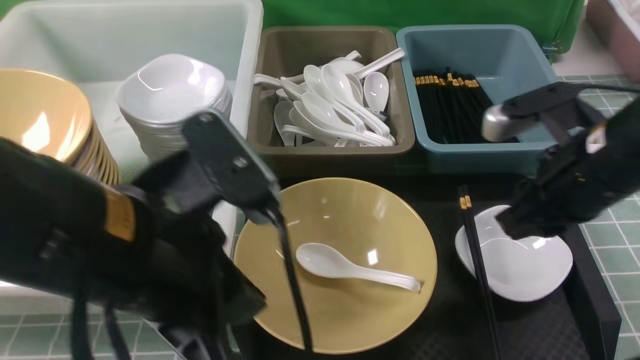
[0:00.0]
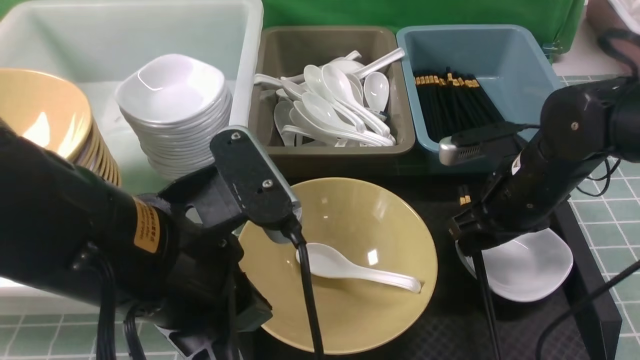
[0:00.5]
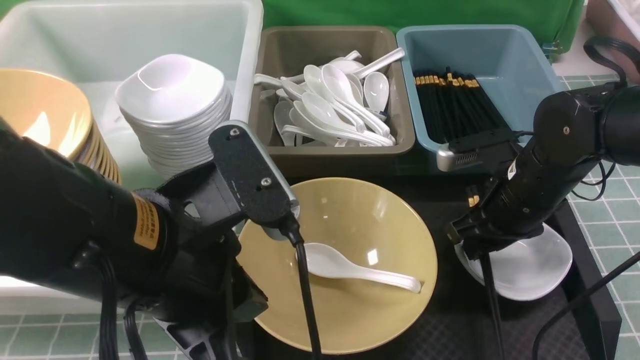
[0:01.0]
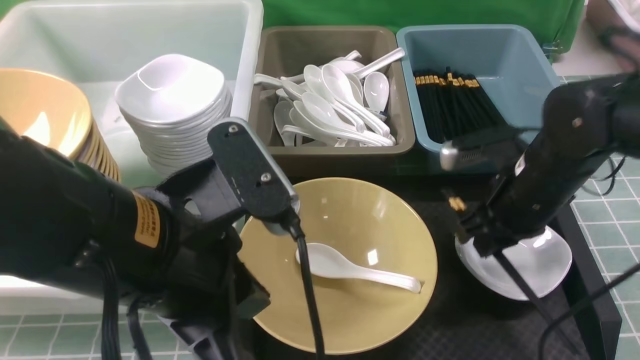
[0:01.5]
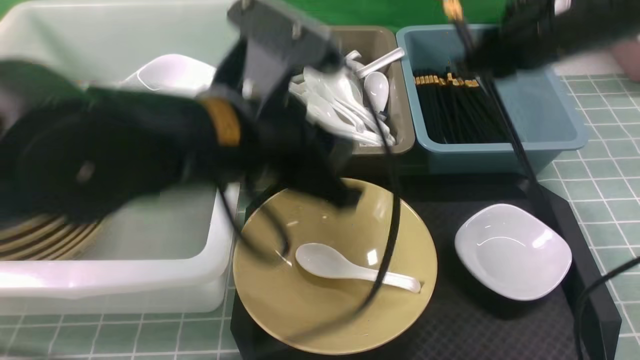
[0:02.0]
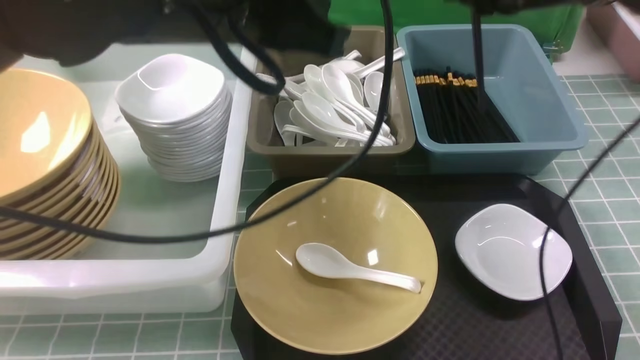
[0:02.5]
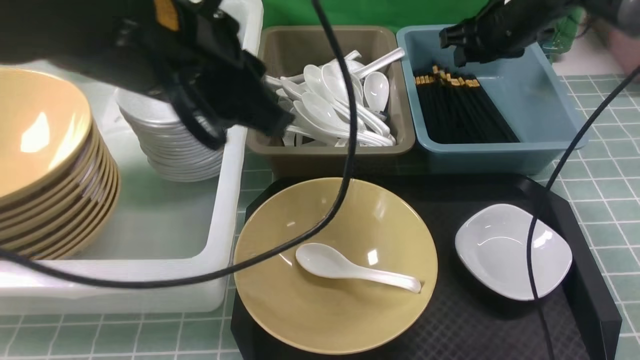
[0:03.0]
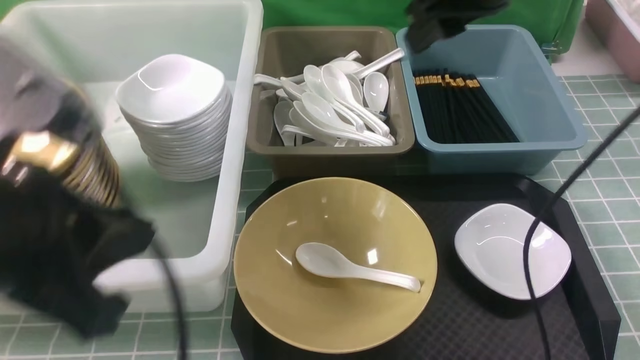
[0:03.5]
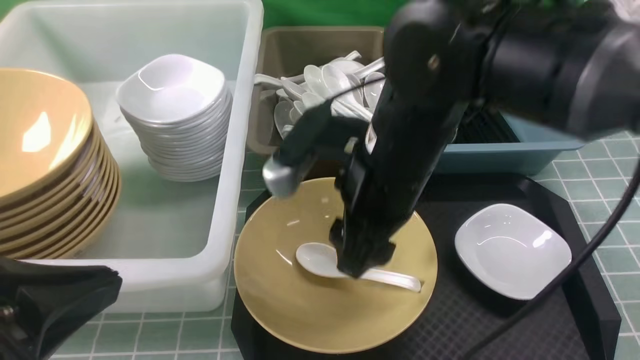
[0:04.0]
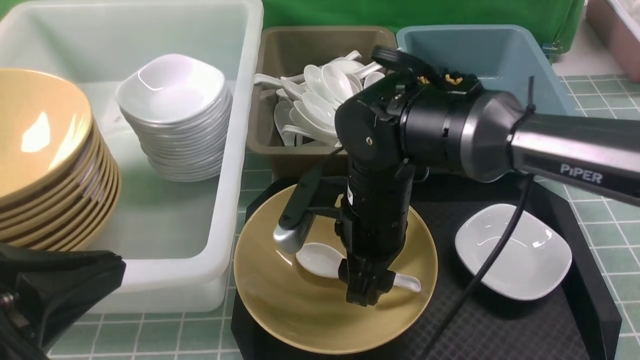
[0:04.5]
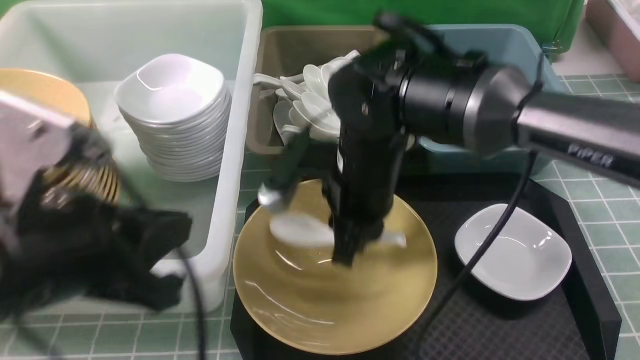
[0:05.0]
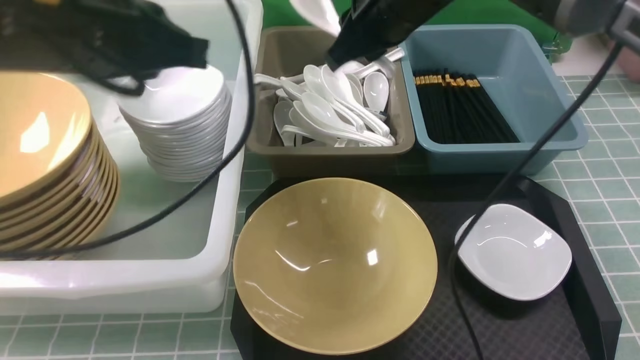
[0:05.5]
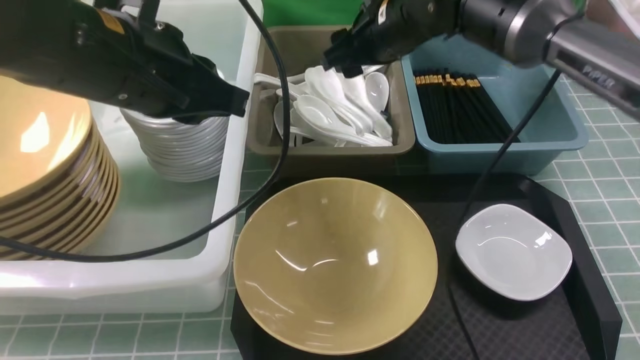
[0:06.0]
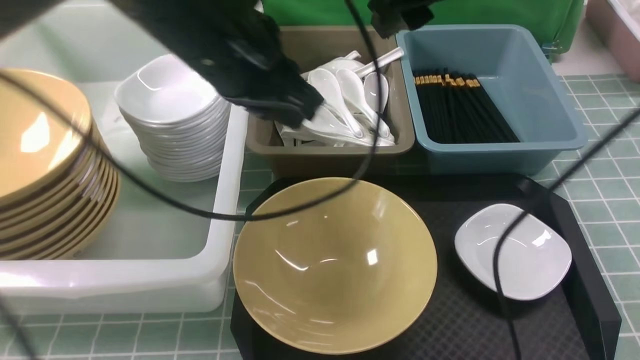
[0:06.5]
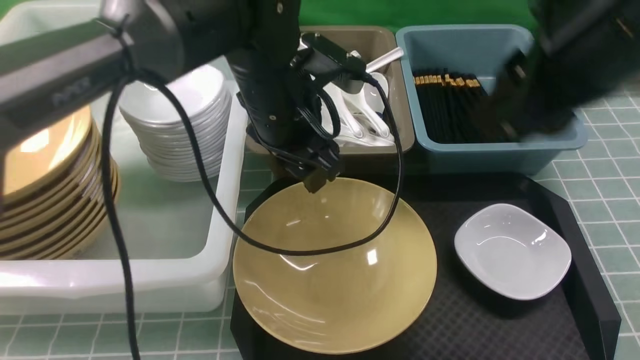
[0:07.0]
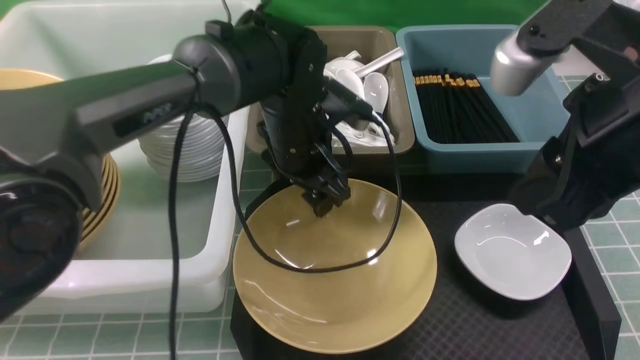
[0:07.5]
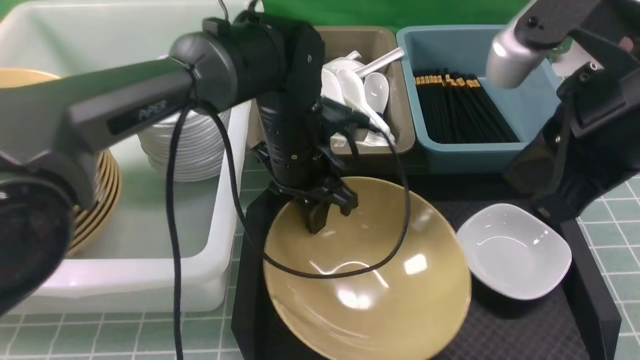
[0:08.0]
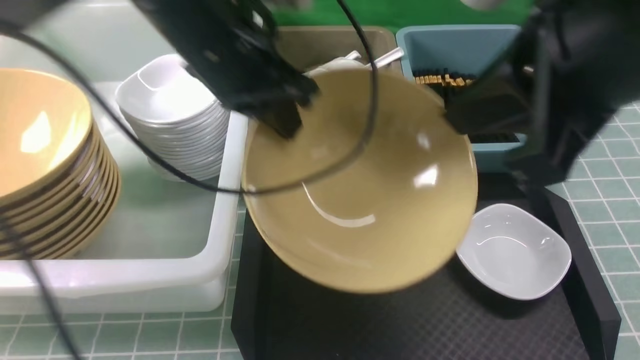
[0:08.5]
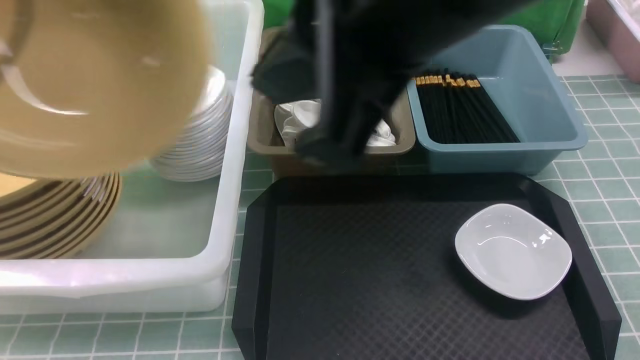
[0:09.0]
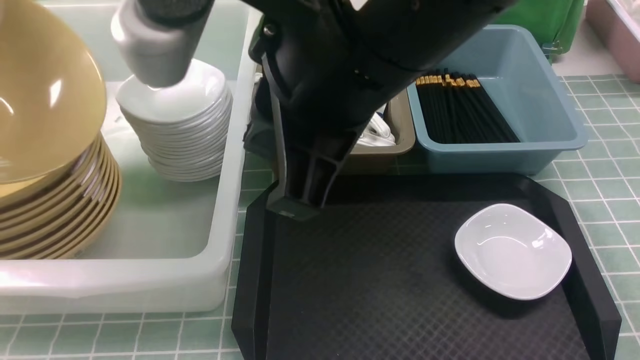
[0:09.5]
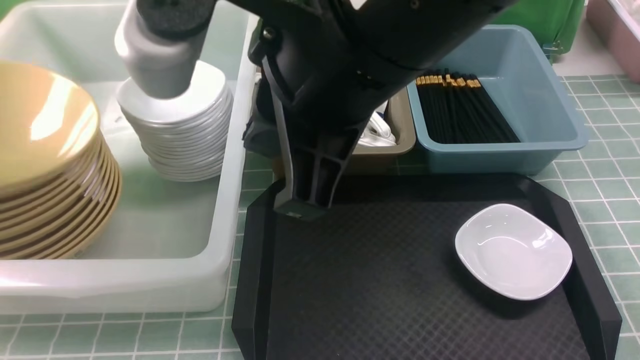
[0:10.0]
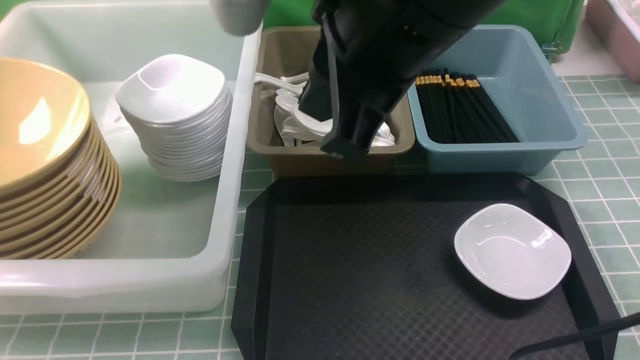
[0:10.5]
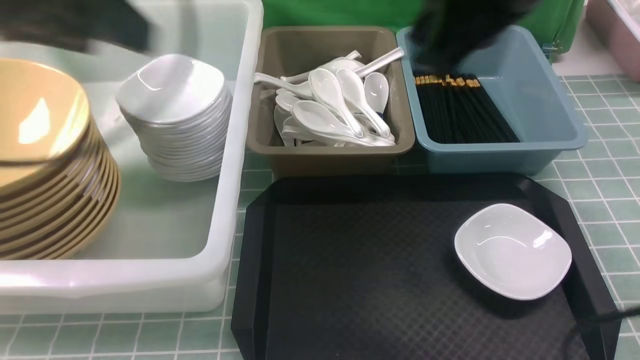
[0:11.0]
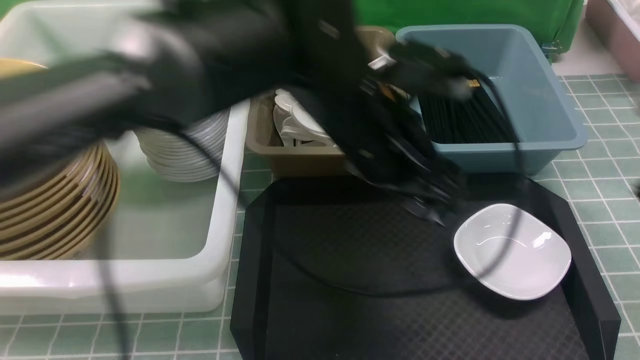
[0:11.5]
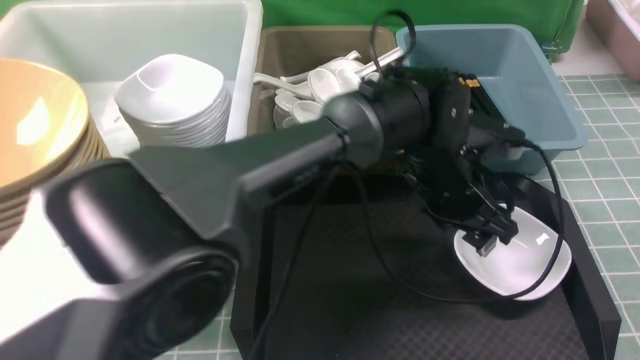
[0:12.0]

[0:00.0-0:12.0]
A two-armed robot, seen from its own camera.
Task of the whole recording: on blue table put chopsticks spoon bowls plates into blue grey white boxes.
Step, 0:02.0 to 0:03.0: use the right arm to put the chopsticks into the small storage box on the right.
Step, 0:03.5 to 0:04.5: use the right arm to grab the soup spoon in the middle.
Step, 0:05.5 to 0:06.0: use the right arm to put the soup spoon into the small storage box in the middle.
Step, 0:06.5 to 0:08.0: use the left arm to grab the yellow noodle bowl on the left.
Step, 0:08.5 to 0:10.5: use the left arm to put the noodle bowl into the large storage box on the left.
0:00.0 to 0:02.0: The left gripper moves to the right and forward, roughly 10 cm. The right gripper moves forward, some 10 cm, reaches some 10 cm downward, then returns, and opens, then closes once more.
0:02.0 to 0:04.0: The left gripper moves to the left and backward, roughly 20 cm, while the right gripper goes roughly 15 cm to the left, travels forward and back again, roughly 15 cm each way, and opens its fingers.
0:04.0 to 0:06.0: The two grippers go roughly 20 cm forward. The right gripper closes, then opens again.
0:06.0 to 0:08.0: The left gripper shifts roughly 20 cm downward, to the right and forward, and opens and closes again. The right gripper travels backward and to the right by roughly 25 cm, and closes its fingers.
0:08.0 to 0:10.0: The right gripper travels to the left by approximately 15 cm. The left gripper is displaced to the left and upward by some 40 cm.
0:10.0 to 0:12.0: The left gripper goes roughly 50 cm to the right, and opens up. Meanwhile the right gripper shifts roughly 25 cm to the right.

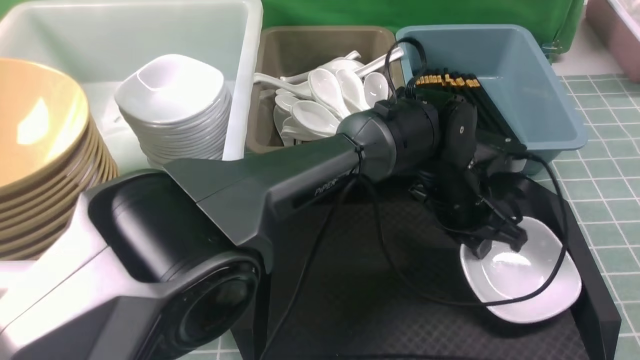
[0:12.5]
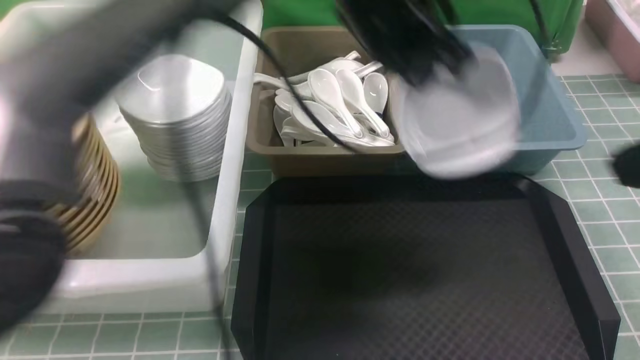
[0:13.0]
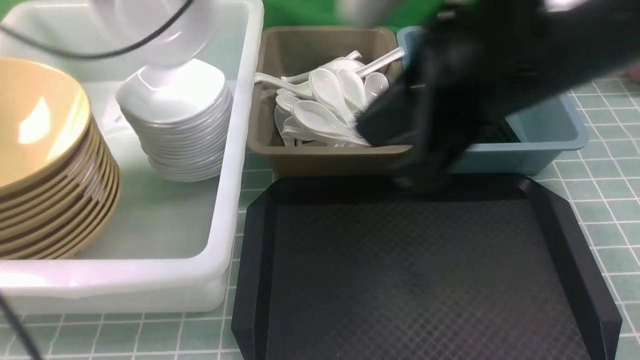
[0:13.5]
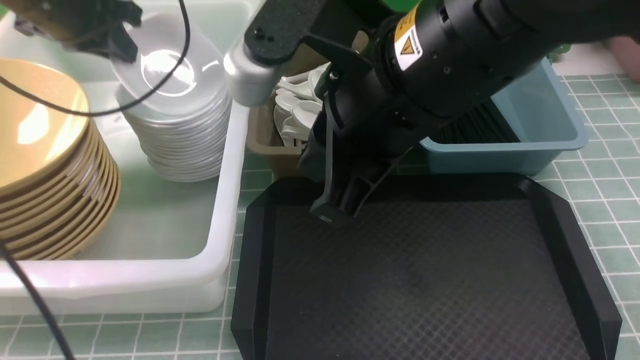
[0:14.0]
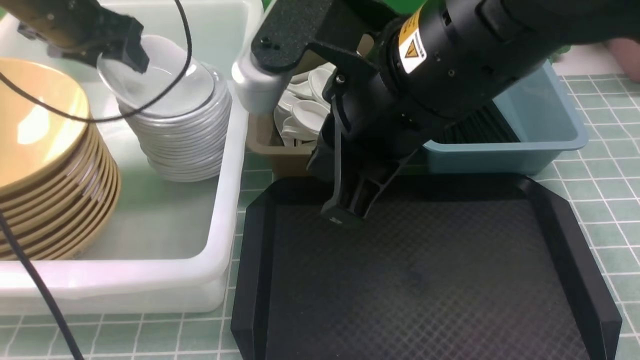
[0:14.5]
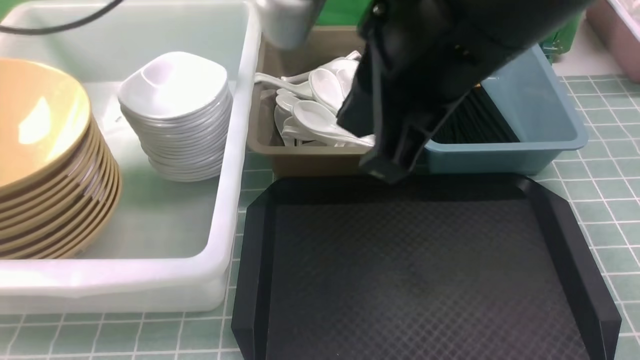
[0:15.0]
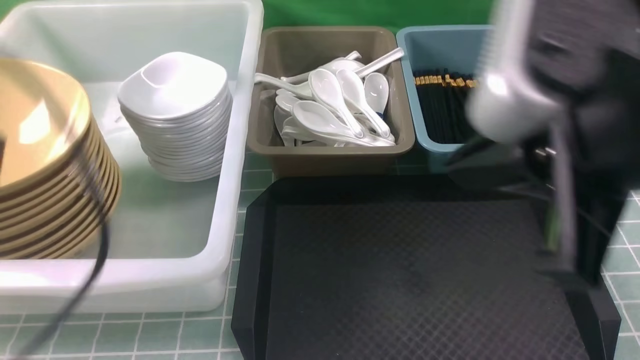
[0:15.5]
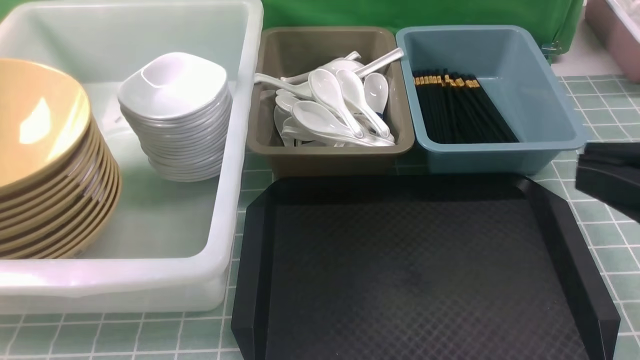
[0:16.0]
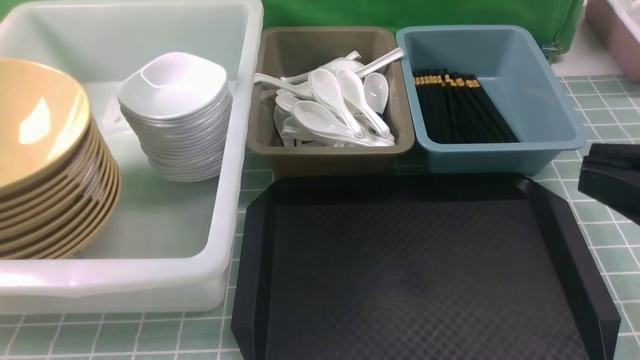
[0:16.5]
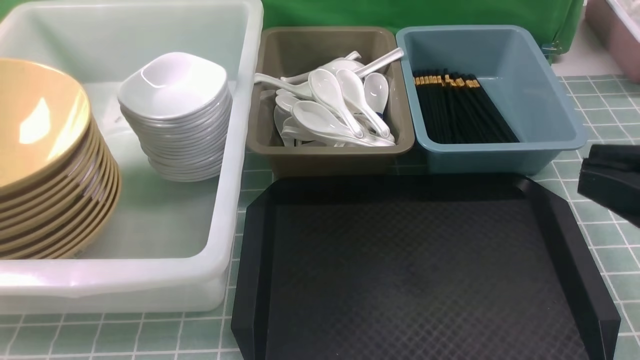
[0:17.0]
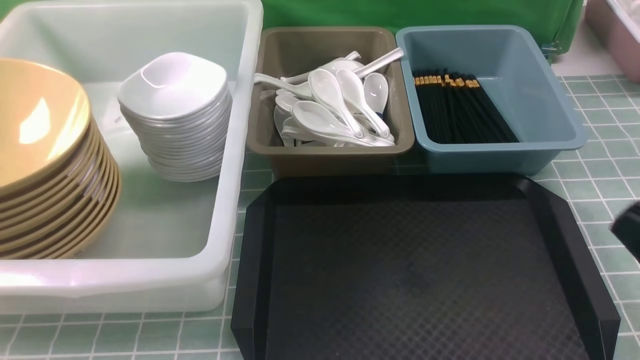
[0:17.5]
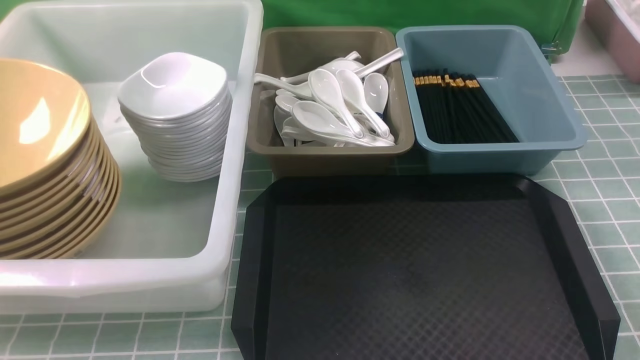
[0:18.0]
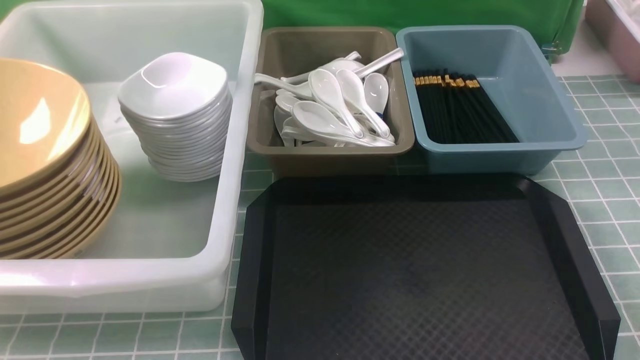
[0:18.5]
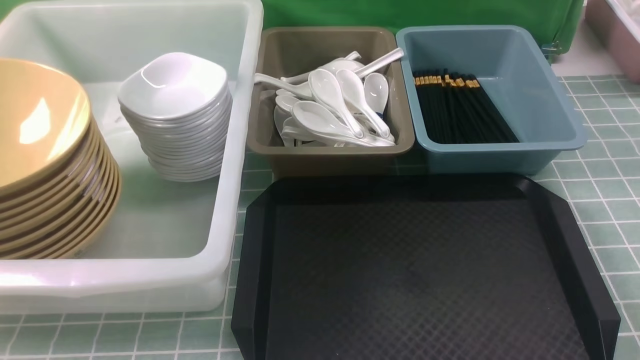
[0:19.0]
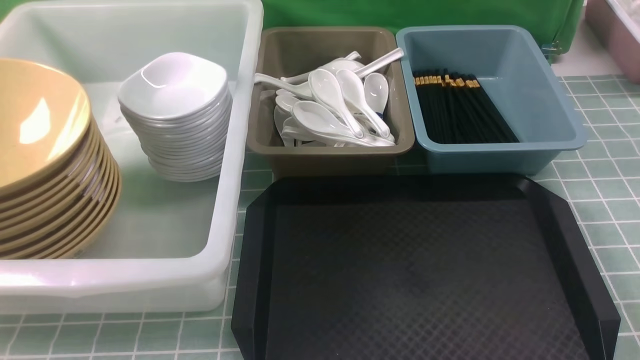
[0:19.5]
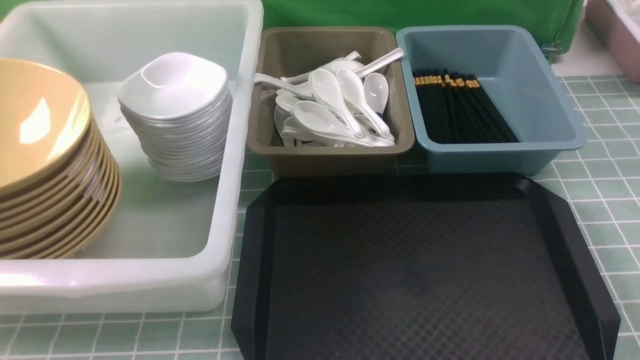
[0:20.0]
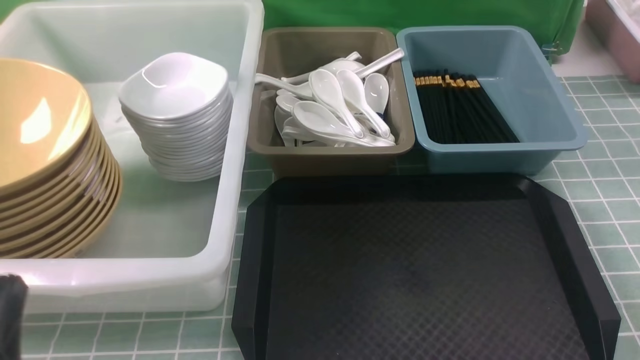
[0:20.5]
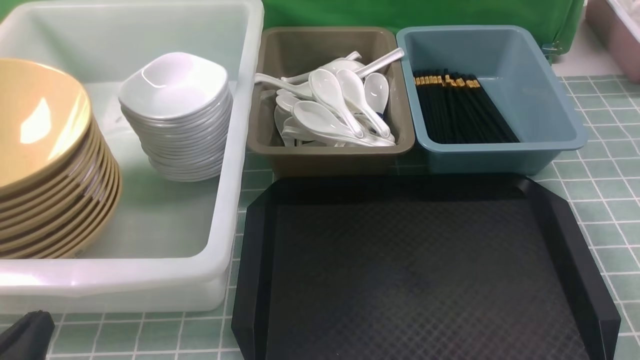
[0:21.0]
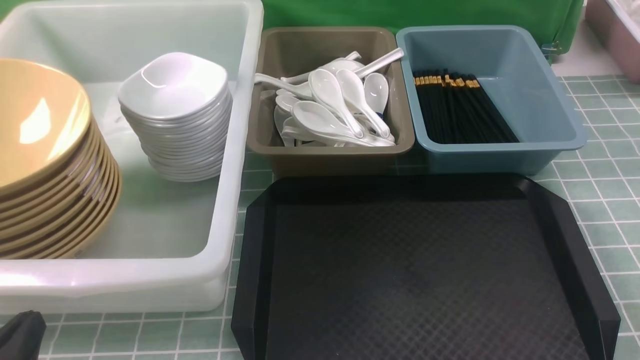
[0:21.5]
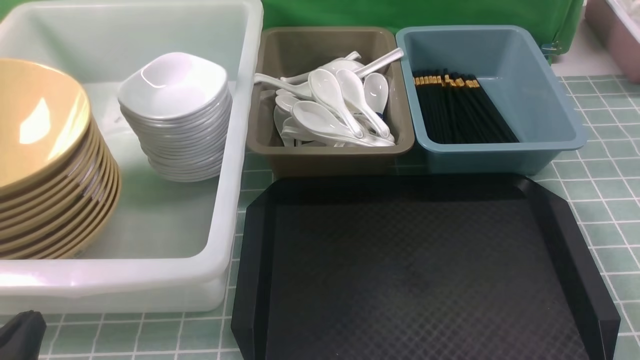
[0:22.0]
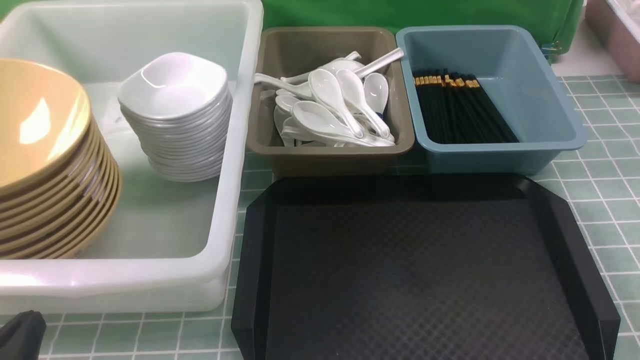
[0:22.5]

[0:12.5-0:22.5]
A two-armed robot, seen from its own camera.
Task of the whole recording: on blue table put chopsticks spoon bowls plates into blue grey white boxes.
Step, 0:13.0 to 0:14.5: use the left arm to put the plate into the large storage box on the left.
0:12.5 to 0:14.5: The left gripper moves to the left, about 40 cm, while the right gripper travels to the left and forward by some 25 cm.
0:14.5 to 0:16.5: The left gripper shifts some 40 cm backward, and closes up; the right gripper is displaced to the right and backward by roughly 20 cm.
0:16.5 to 0:18.5: The right gripper travels downward and to the right by roughly 25 cm.
0:18.5 to 0:20.5: The left gripper moves downward, some 5 cm.
0:20.5 to 0:22.5: The left gripper heads downward, covering about 5 cm.
